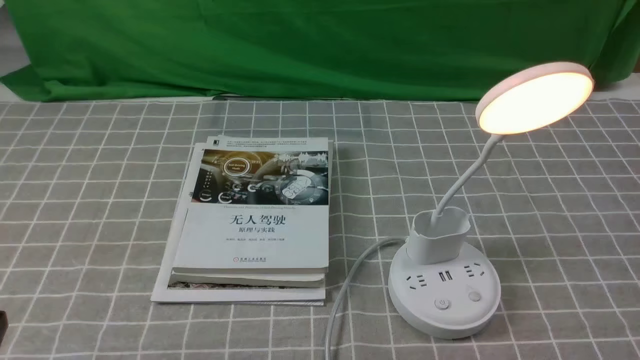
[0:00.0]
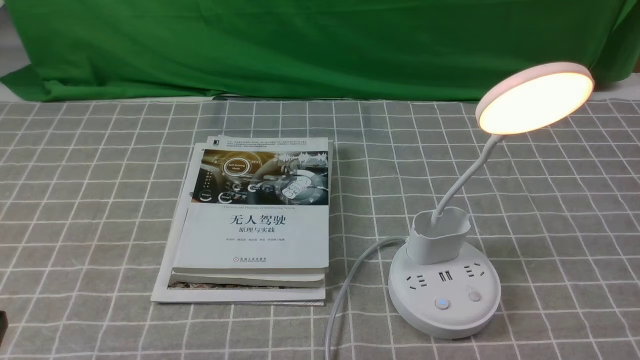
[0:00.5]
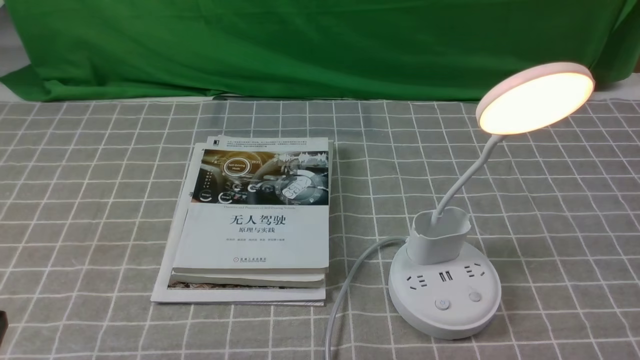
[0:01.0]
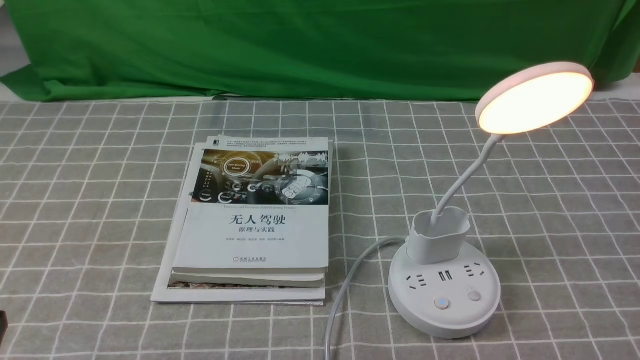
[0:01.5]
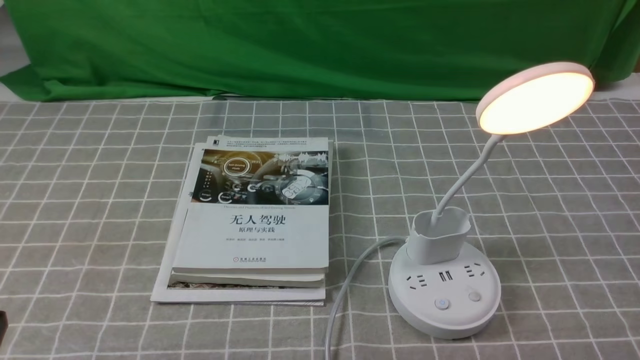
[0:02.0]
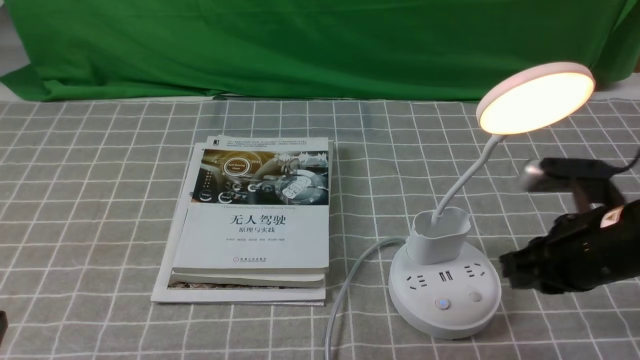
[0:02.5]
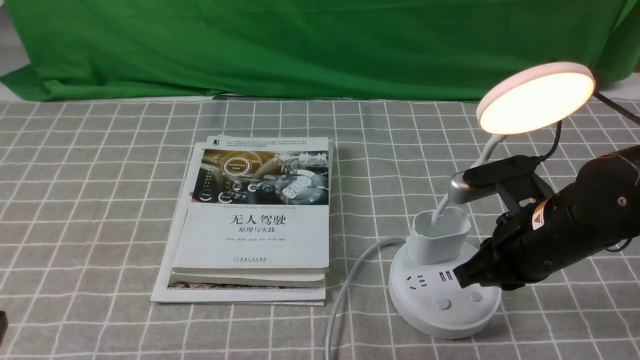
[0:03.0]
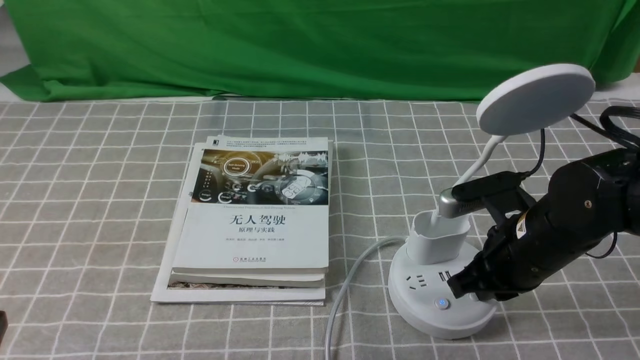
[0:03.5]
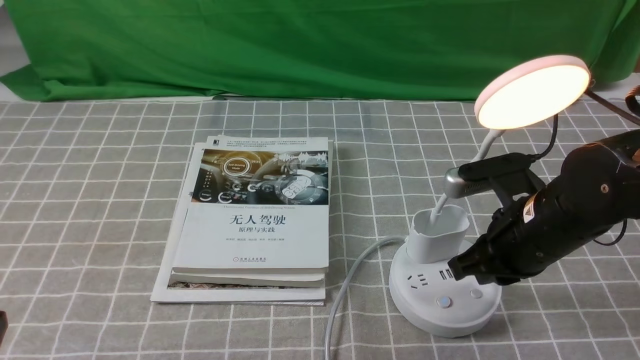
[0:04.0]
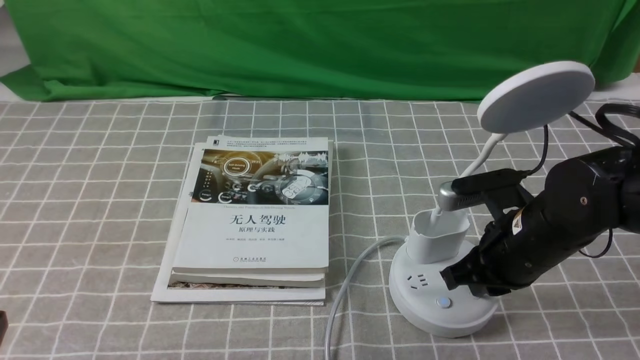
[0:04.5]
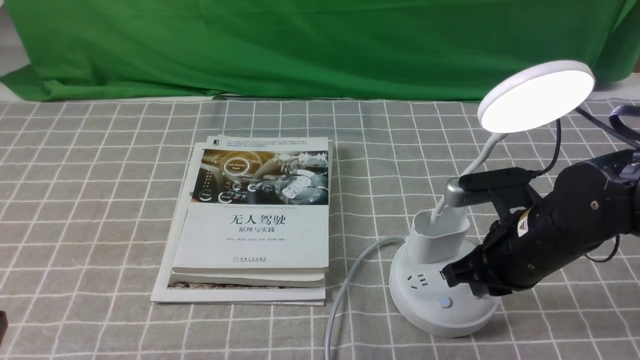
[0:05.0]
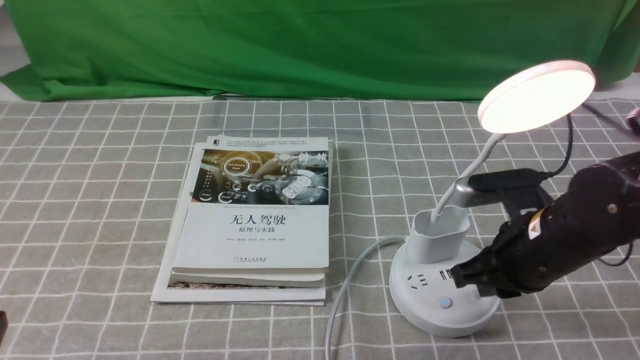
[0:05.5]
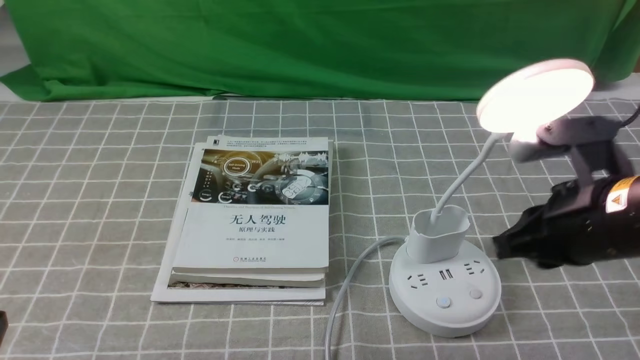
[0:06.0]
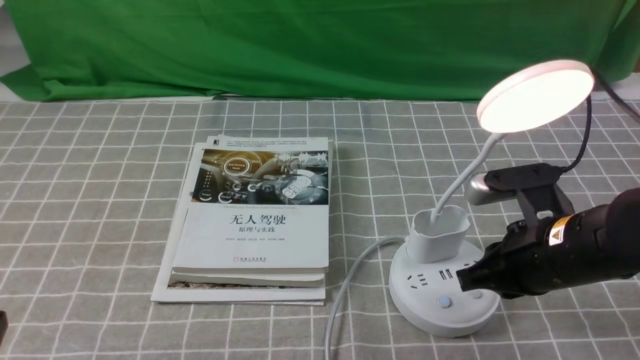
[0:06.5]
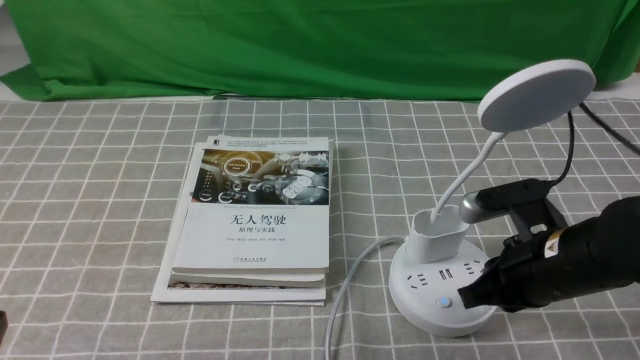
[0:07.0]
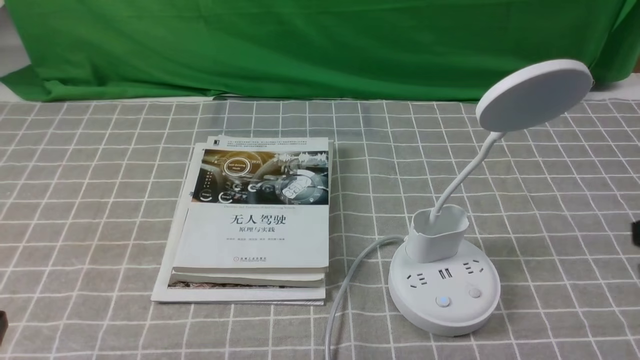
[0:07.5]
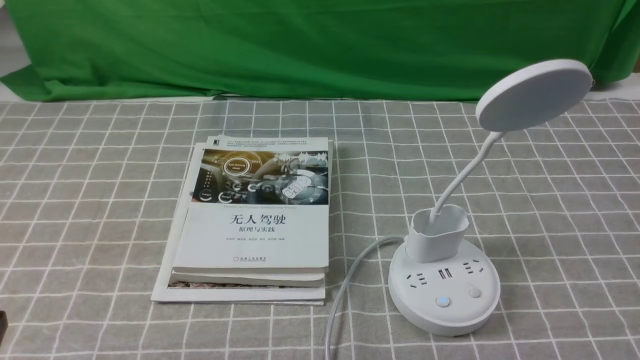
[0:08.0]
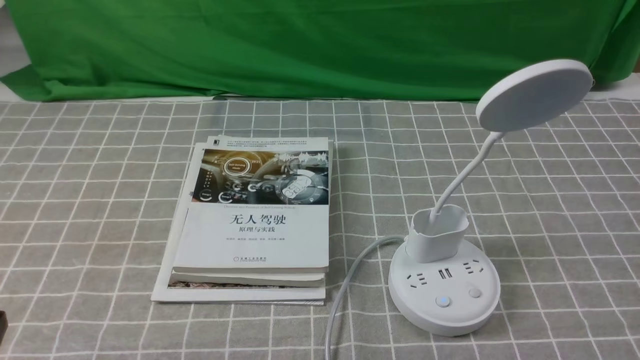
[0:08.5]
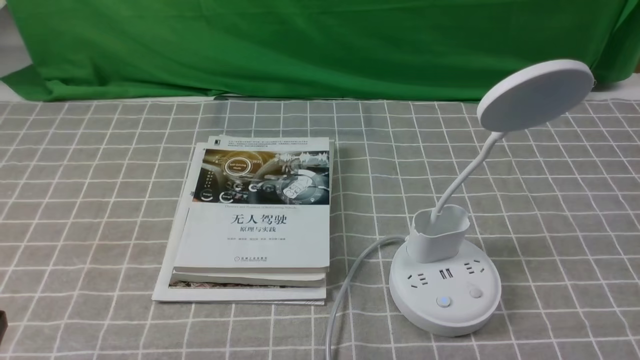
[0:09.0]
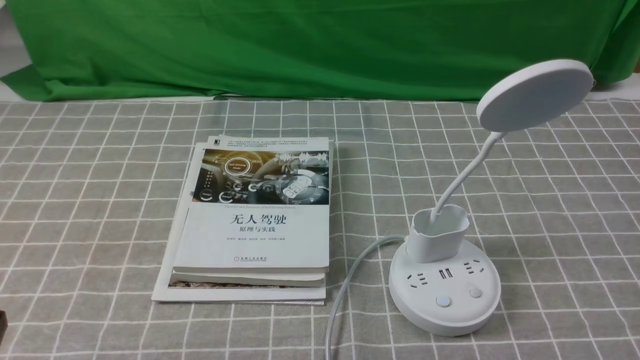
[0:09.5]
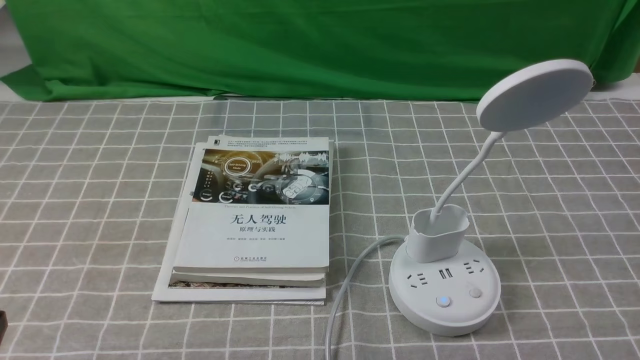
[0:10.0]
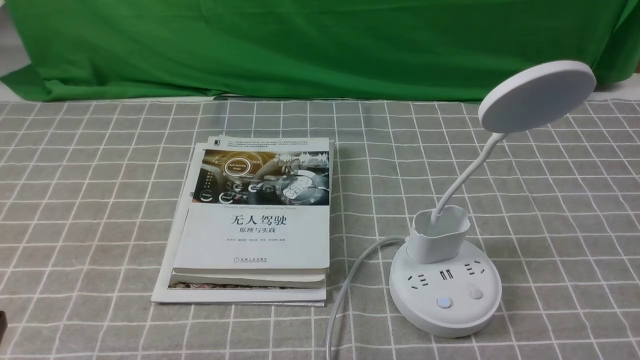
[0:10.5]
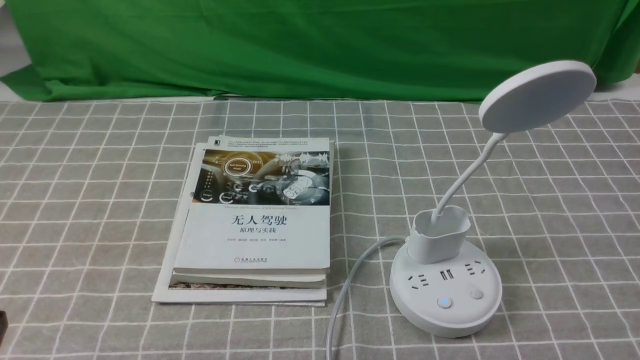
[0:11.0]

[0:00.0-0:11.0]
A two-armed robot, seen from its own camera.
Task of the whole recording: turn off the desk lamp on the grey coffee tablecloth by hand.
Step, 0:00.0 to 0:07.0: use the right arm to press the button switch on the lamp holder.
0:02.0 to 0:03.5: The right gripper is displaced to the left, downward and forward by some 20 cm.
0:03.5 to 0:05.5: The right gripper opens its fingers.
0:05.5 to 0:07.5: The right gripper is displaced backward, upward and to the right by some 15 cm, and closes.
0:09.0 to 0:11.0: The grippers move only a little.

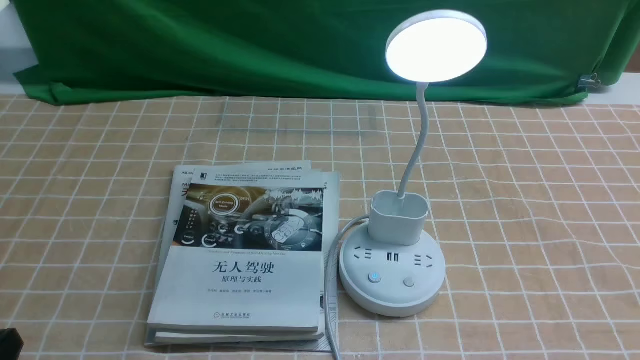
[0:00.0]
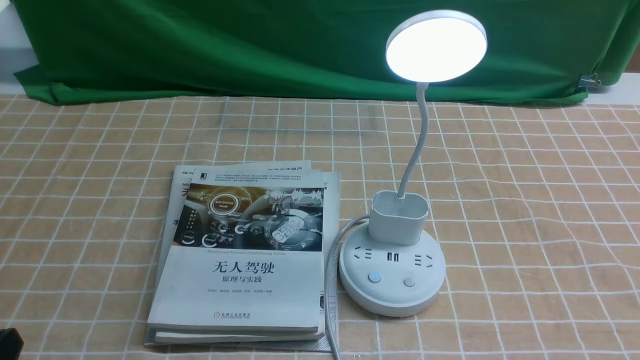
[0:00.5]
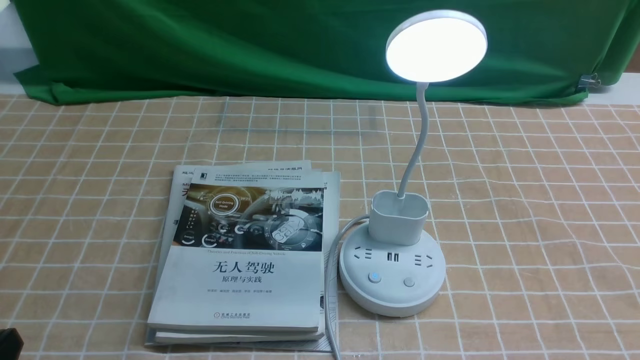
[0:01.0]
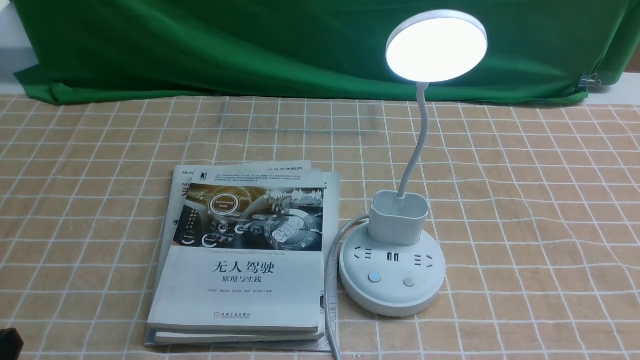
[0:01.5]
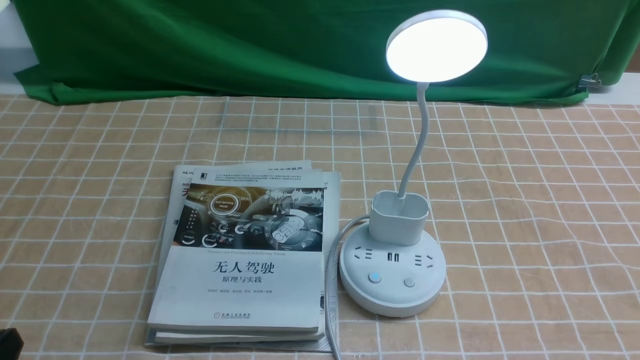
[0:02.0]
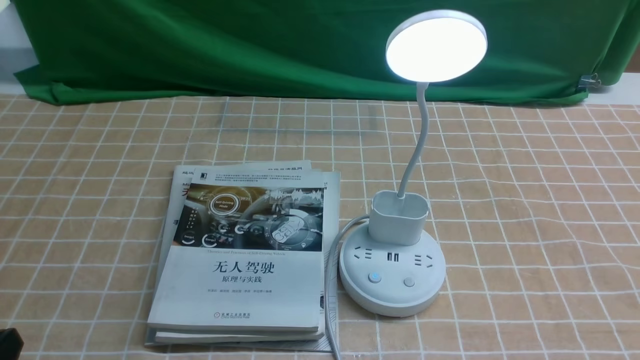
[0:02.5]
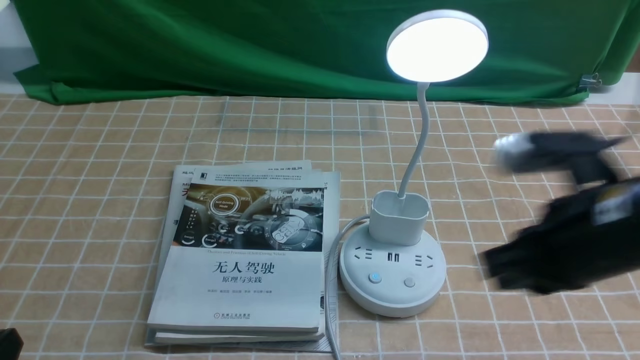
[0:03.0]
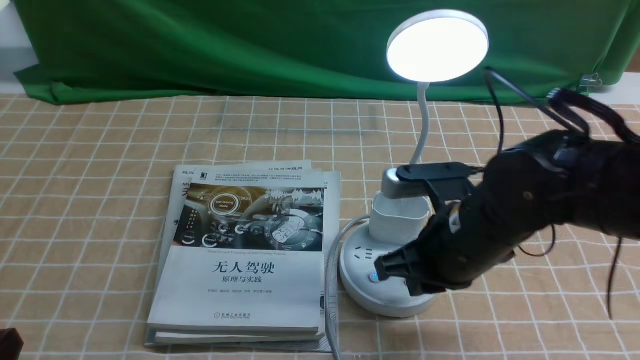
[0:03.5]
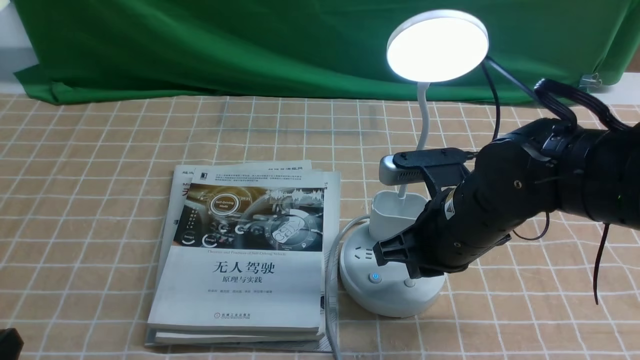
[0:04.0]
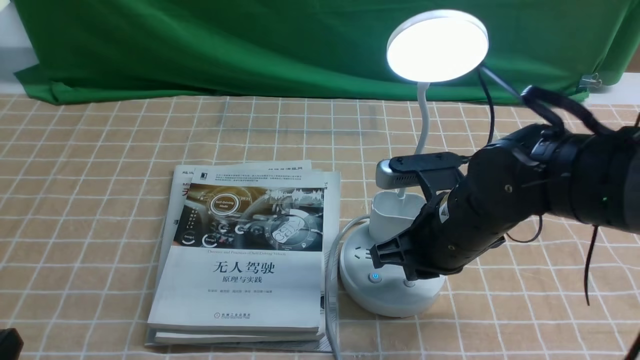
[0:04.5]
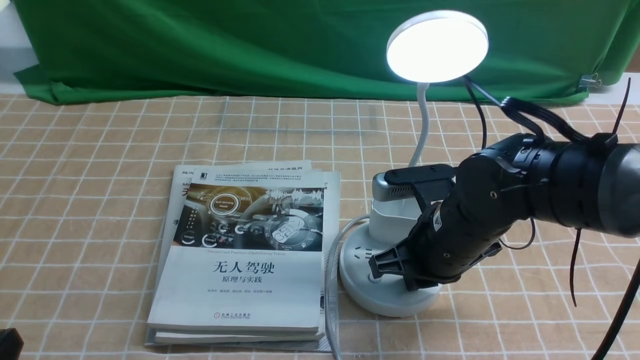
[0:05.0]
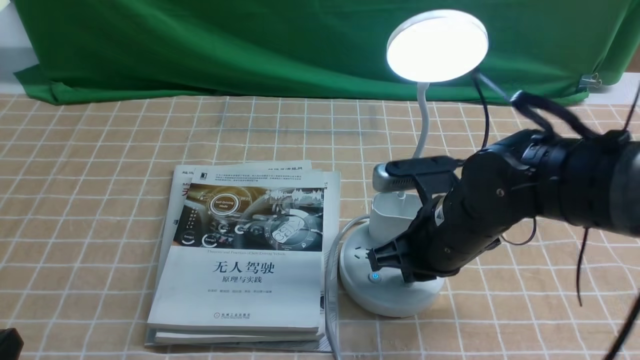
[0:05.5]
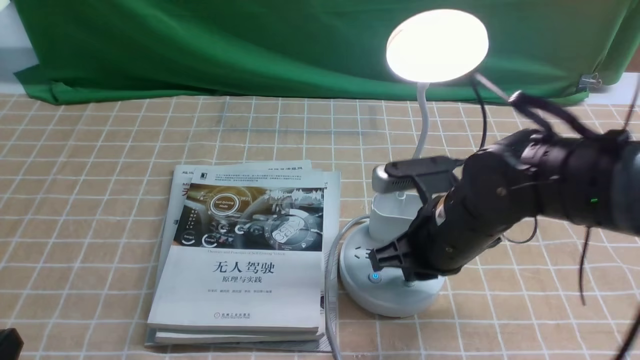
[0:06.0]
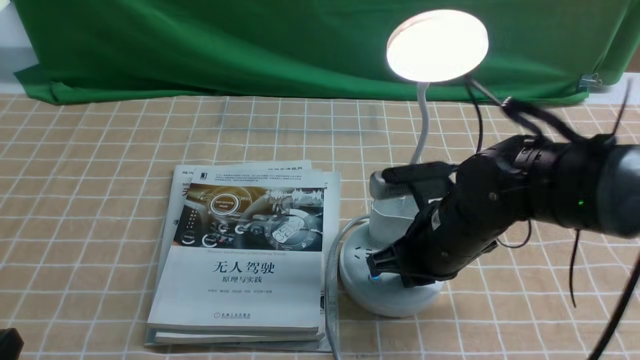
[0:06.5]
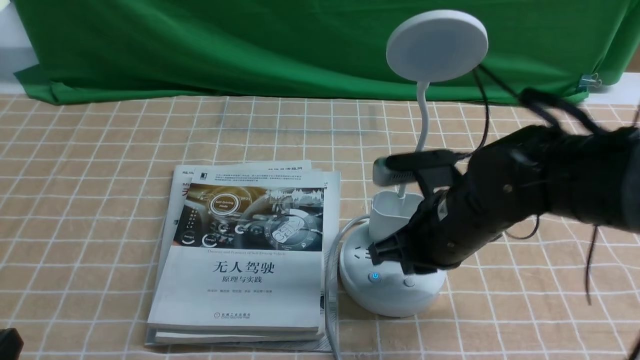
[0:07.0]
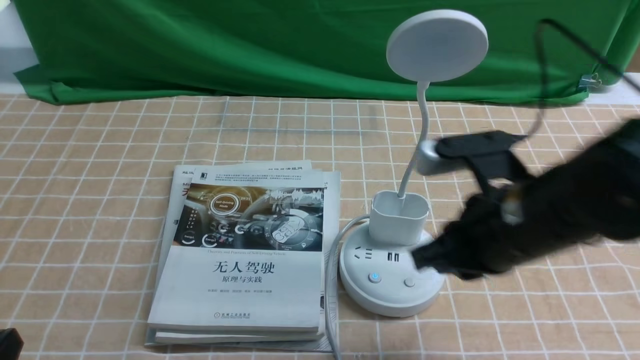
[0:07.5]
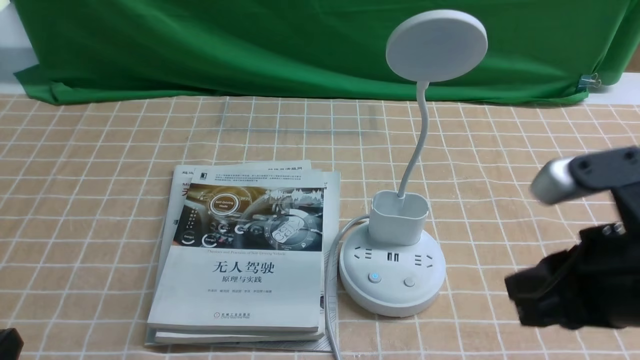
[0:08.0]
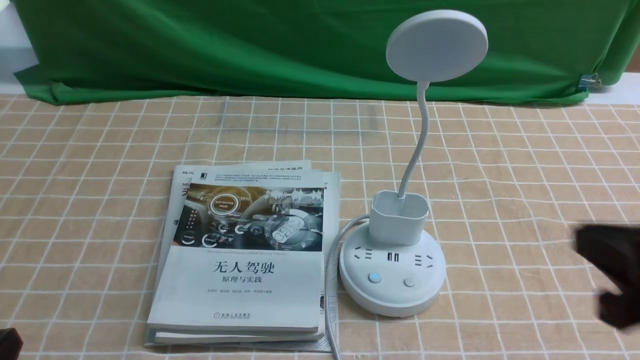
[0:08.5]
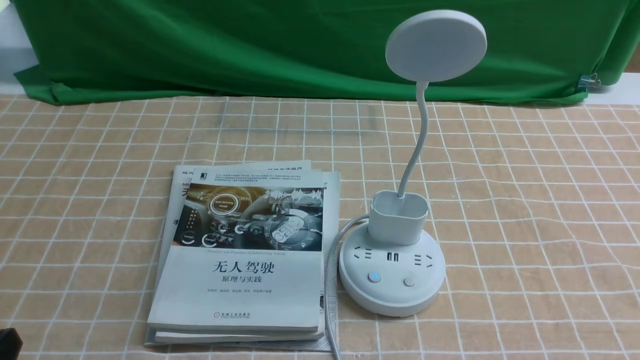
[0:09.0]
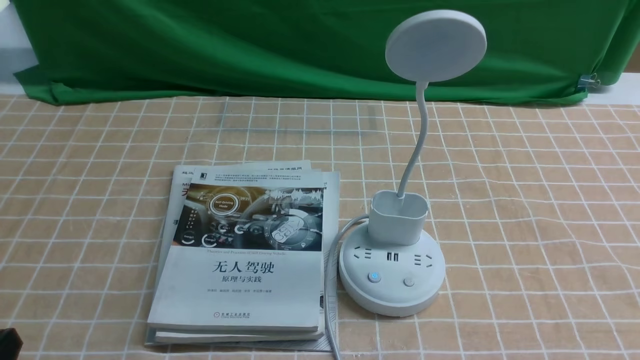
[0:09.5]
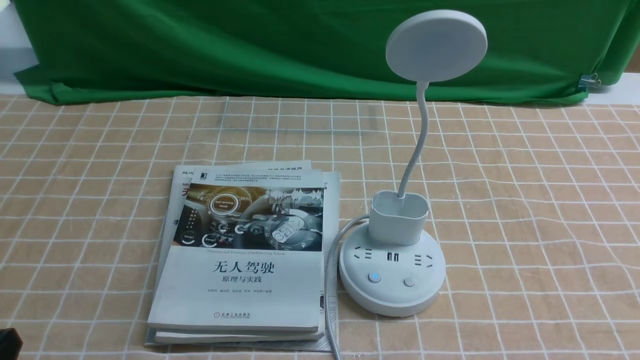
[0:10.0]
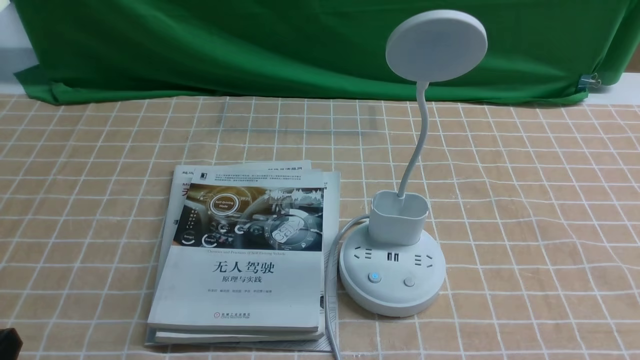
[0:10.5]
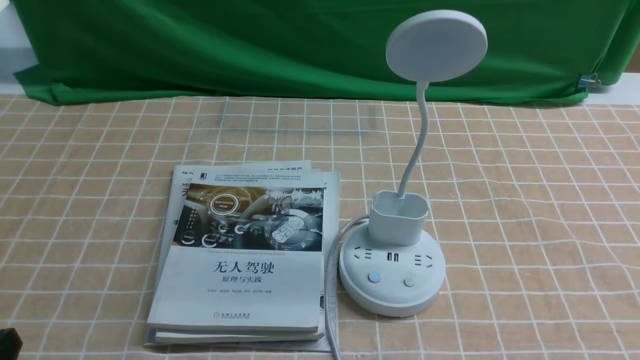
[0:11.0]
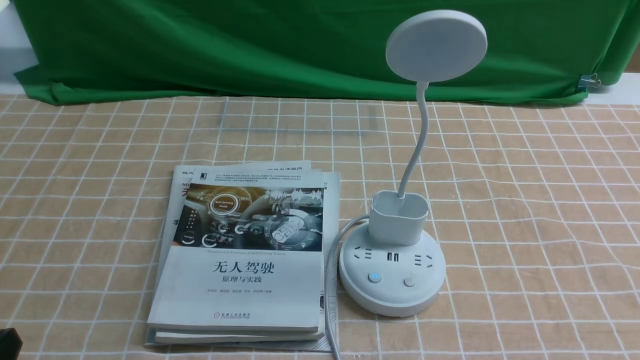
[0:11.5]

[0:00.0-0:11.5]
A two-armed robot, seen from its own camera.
Task of the whole recording: turn off the desk lamp on the light coffee tablecloth by hand.
Step, 0:00.0 to 0:07.0: use the right arm to press the button switch on the lamp holder.
0:02.0 to 0:04.0: The right gripper is displaced forward and to the left by approximately 30 cm, and closes up.
0:04.0 to 0:06.0: There are only small adjustments of the grippers.
0:06.0 to 0:07.5: The right gripper travels upward by some 5 cm.
0:07.5 to 0:09.5: The right gripper shifts approximately 25 cm backward and to the right.
